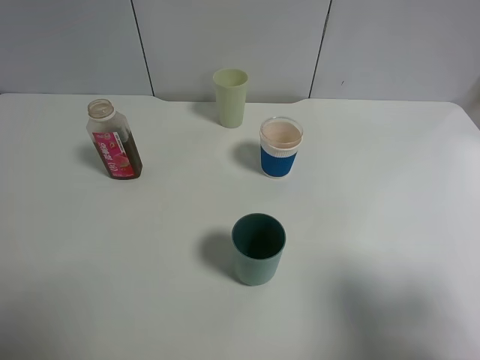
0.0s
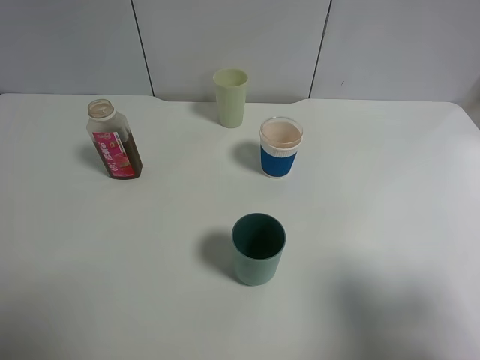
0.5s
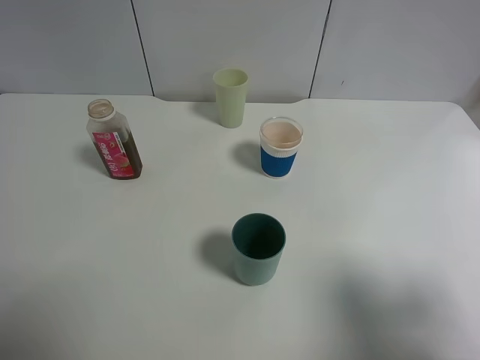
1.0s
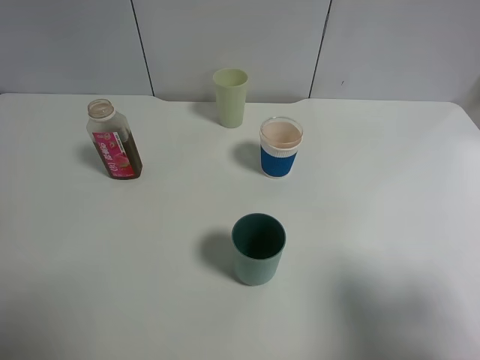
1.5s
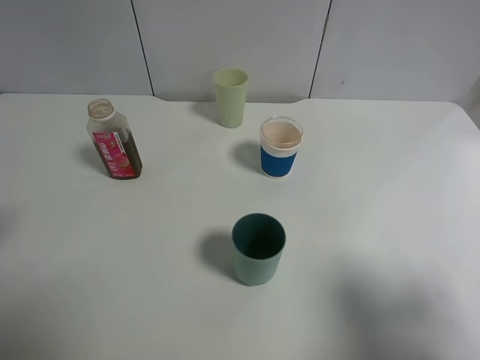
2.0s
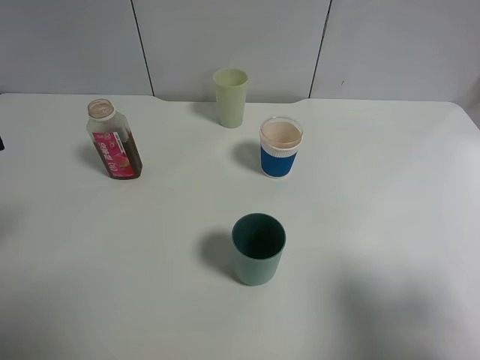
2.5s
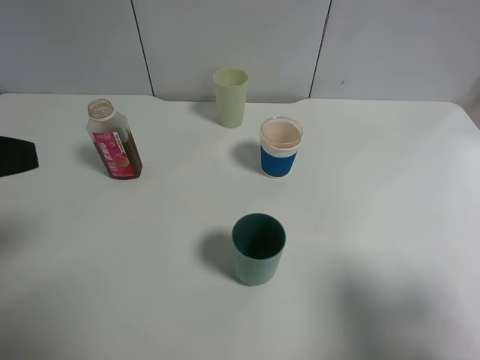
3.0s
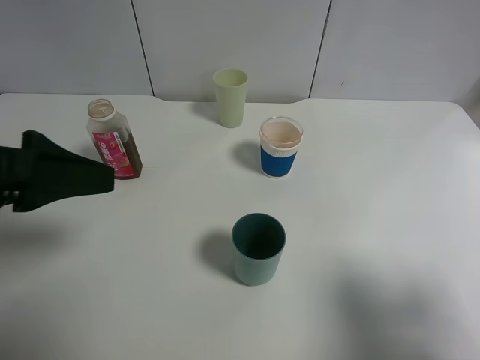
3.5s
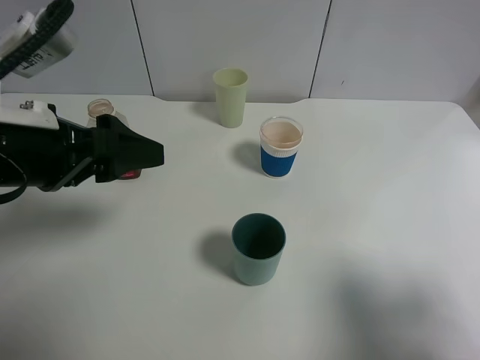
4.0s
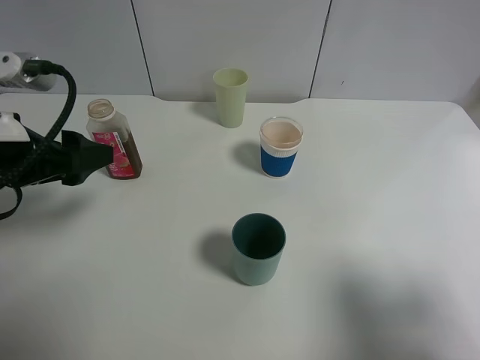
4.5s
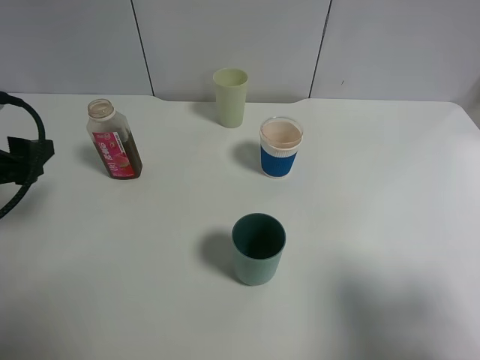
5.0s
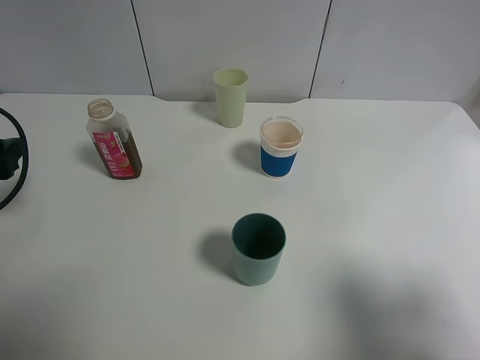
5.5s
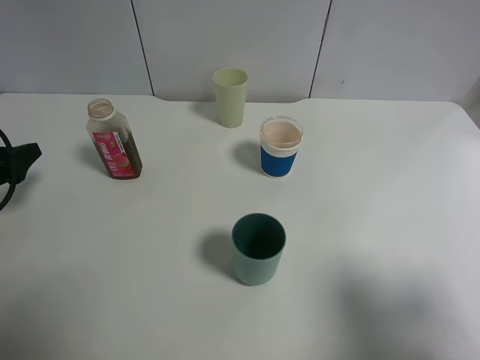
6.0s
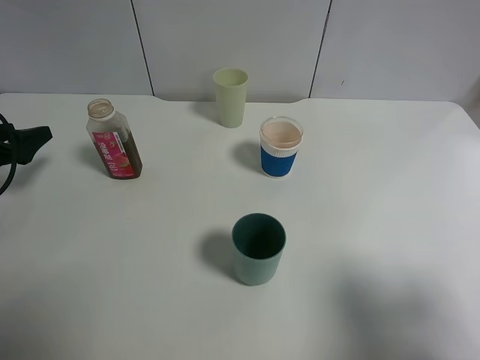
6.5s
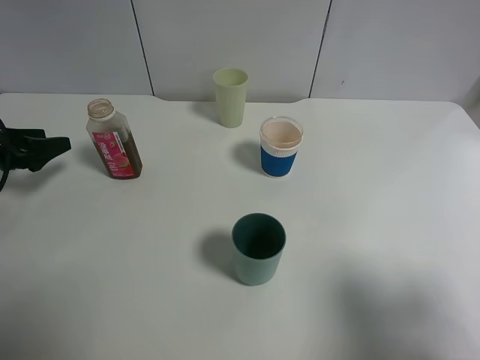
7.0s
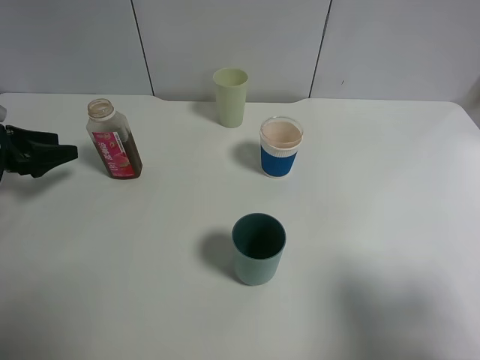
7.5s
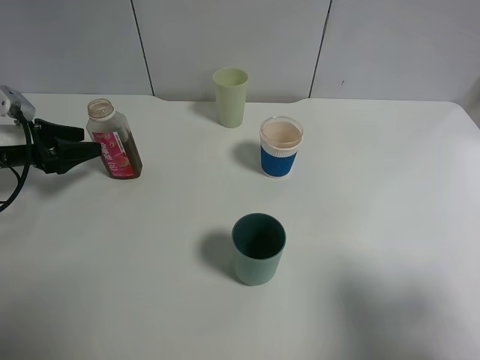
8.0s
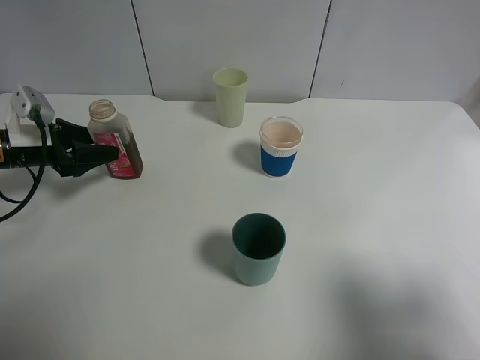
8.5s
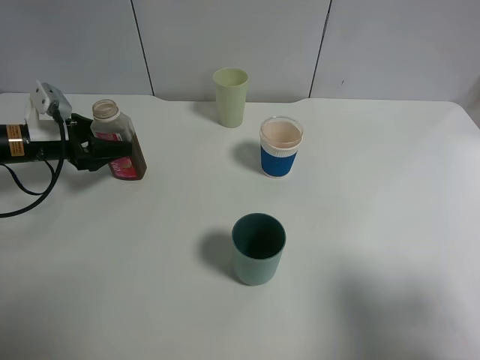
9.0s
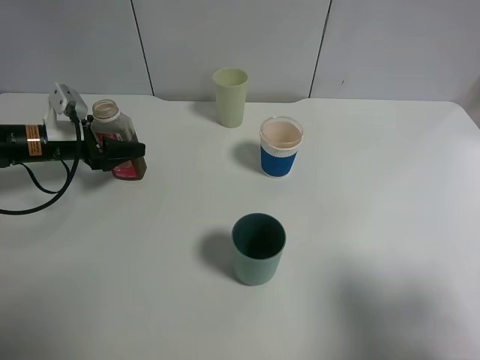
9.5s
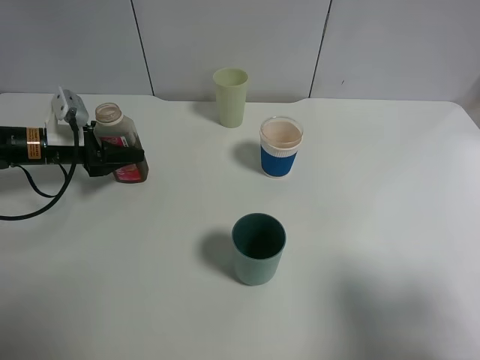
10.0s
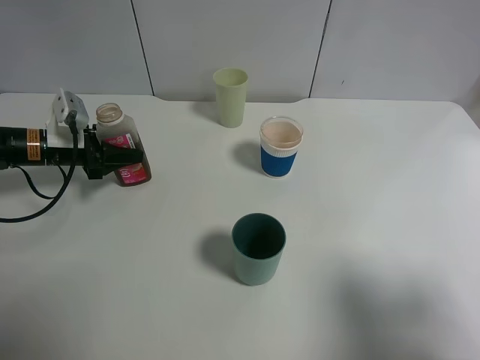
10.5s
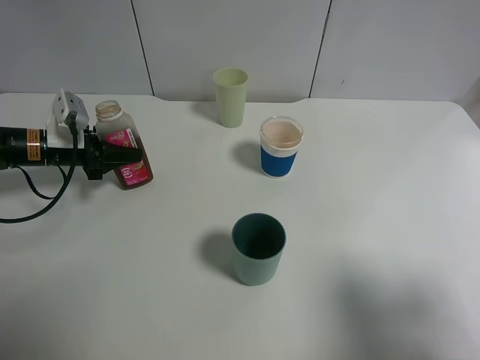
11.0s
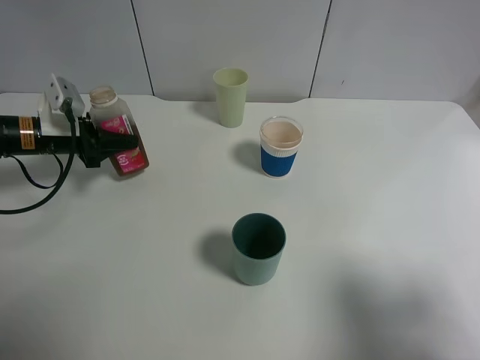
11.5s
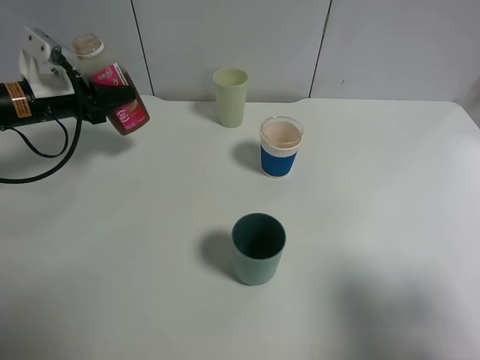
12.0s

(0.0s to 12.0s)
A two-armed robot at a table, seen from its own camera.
Task of the whole recording: use a gripper to hold the bottle of the drink and pour it into a random cup.
Step, 0.0s - 10.5s: Grasp the cranberry juice bottle with the left gripper.
2.0s - 4.0s: The left gripper heads to the right and forward, covering roughly 10 cm.
4.0s - 6.0s: The left gripper shifts approximately 25 cm to the left and downward.
6.0s - 8.0s: The left gripper is displaced forward by roughly 10 cm.
8.0s - 10.0s: The left gripper moves to the right, about 5 cm.
10.0s - 12.0s: The left gripper travels upward by roughly 5 cm, and closes.

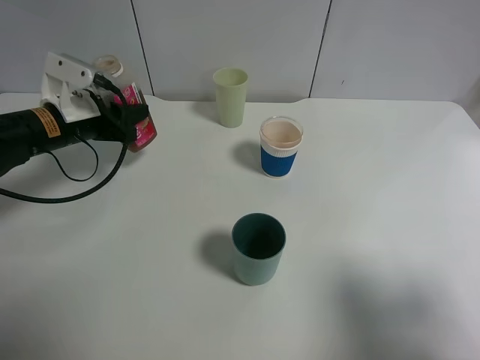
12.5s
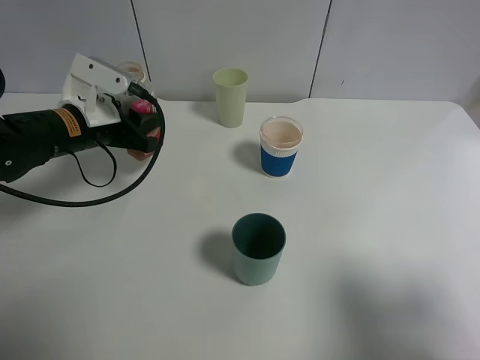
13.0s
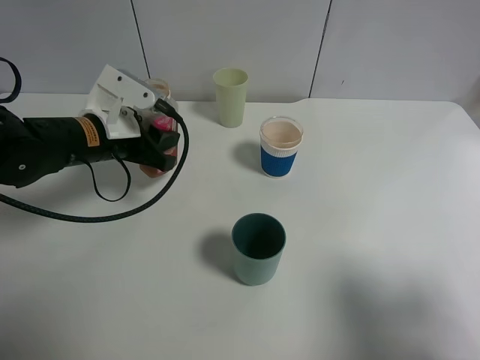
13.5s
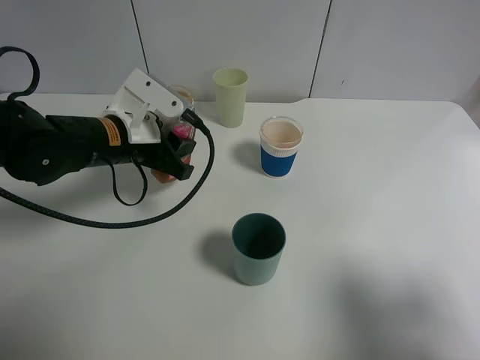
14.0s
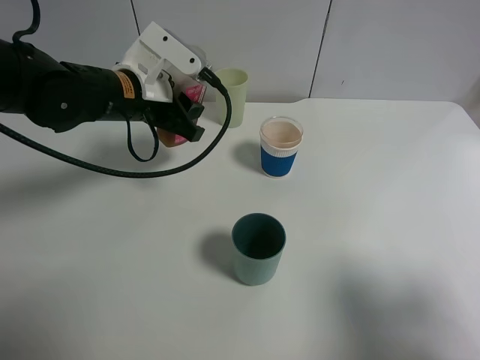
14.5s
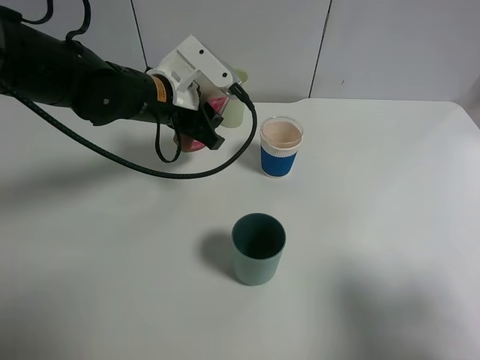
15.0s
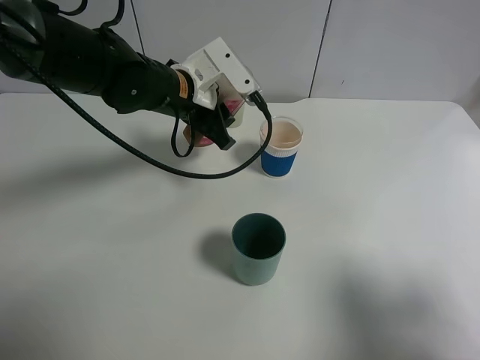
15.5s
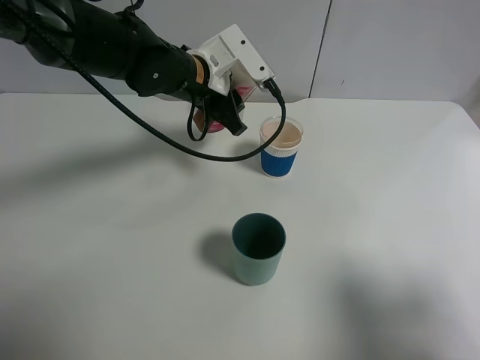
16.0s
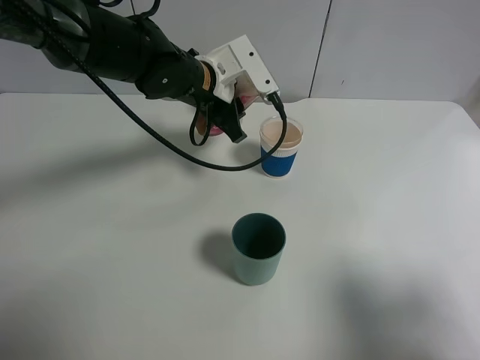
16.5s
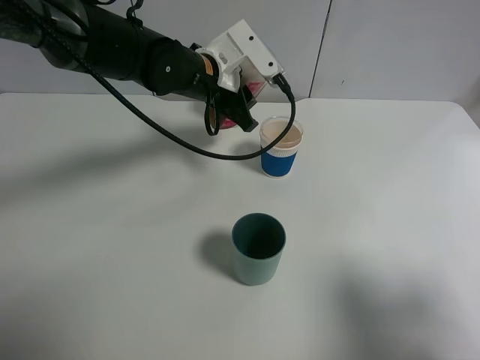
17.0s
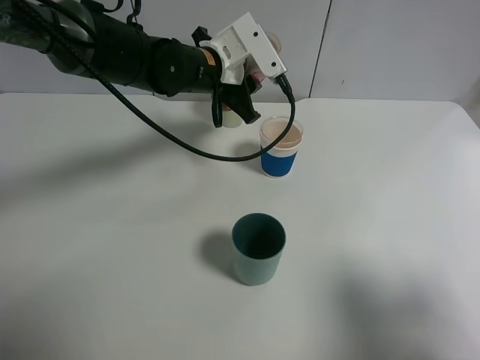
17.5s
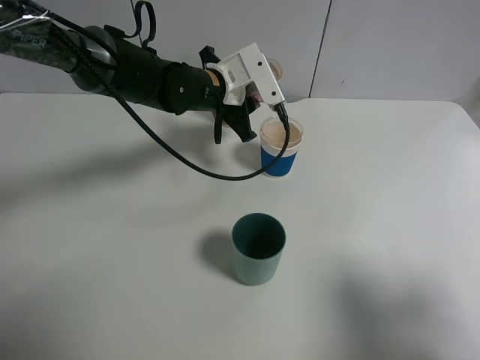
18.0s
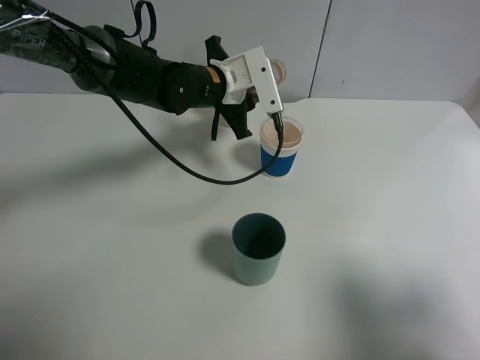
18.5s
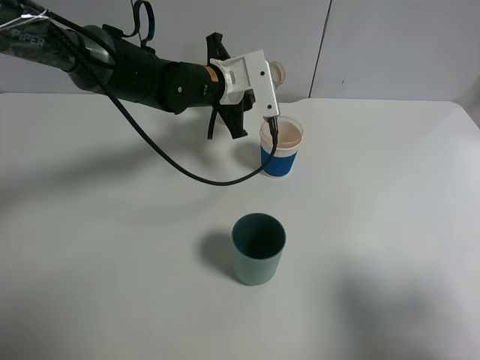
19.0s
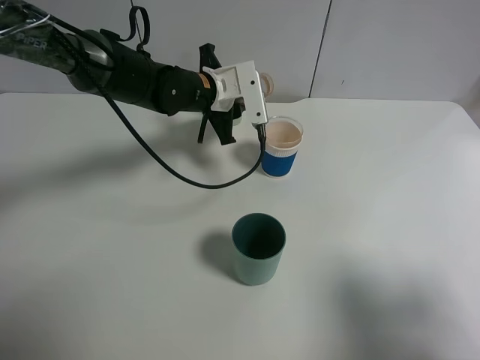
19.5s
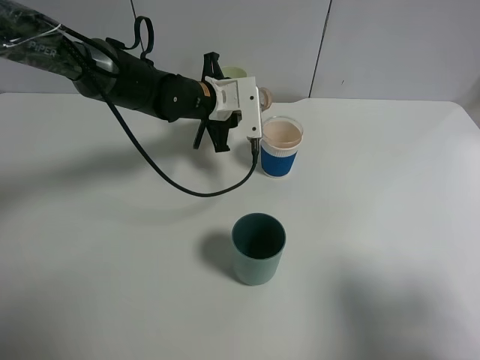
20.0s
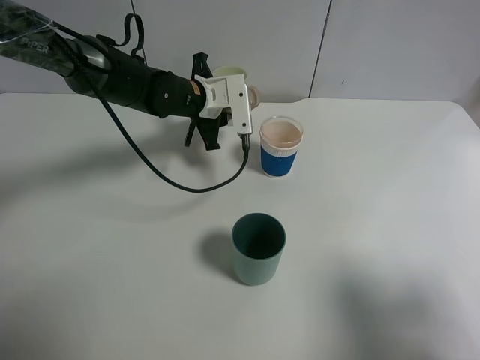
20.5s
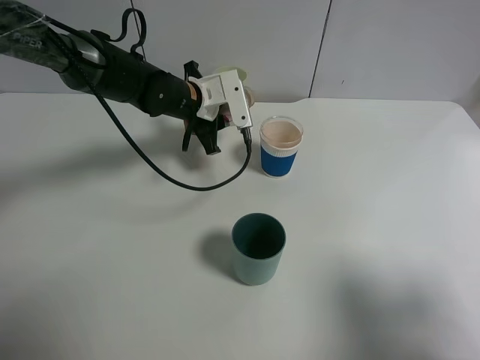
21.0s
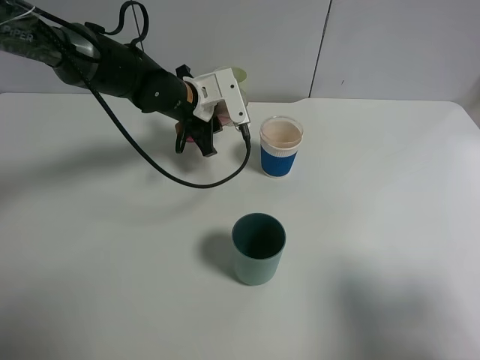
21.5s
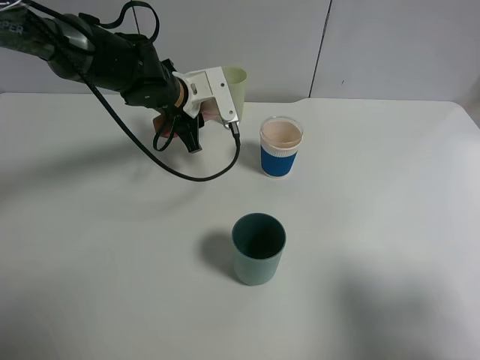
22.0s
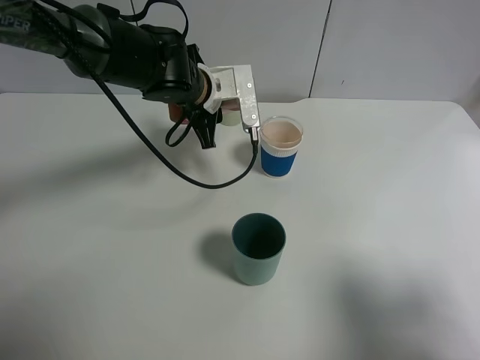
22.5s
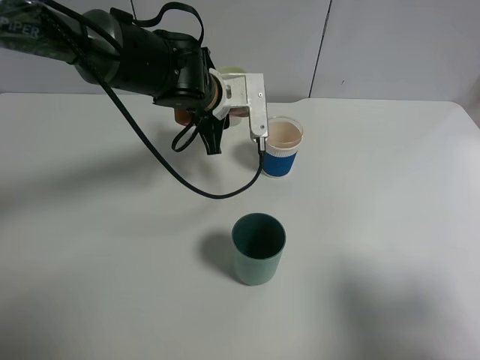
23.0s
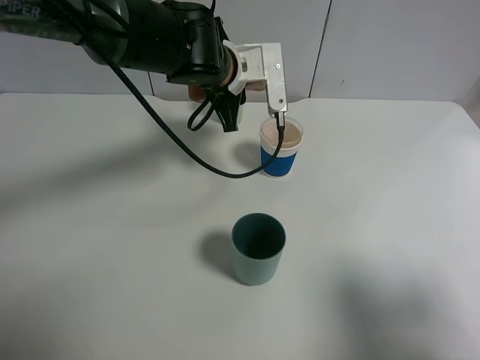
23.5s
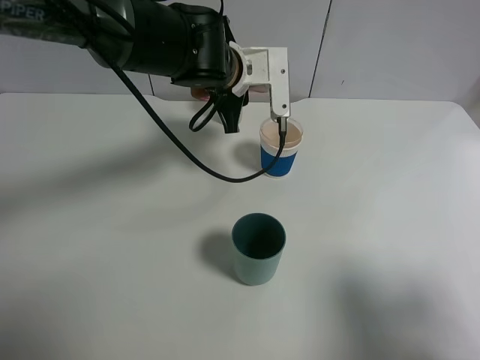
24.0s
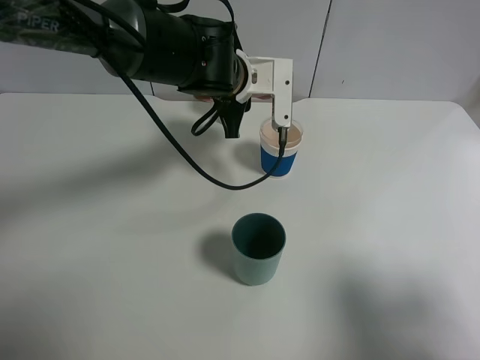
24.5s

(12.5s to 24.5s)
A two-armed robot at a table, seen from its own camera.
Task of the whole recording: use a gripper to hold the bottle of the drink and pour it into a random cup.
12.5s - 14.5s: The left gripper moves to the right, roughly 10 cm.
14.5s - 16.5s: The left gripper moves to the right and forward, some 10 cm.
18.5s - 20.5s: The left gripper ends up approximately 5 cm from where it was.
22.5s - 24.5s: The left gripper shifts roughly 5 cm to the right.

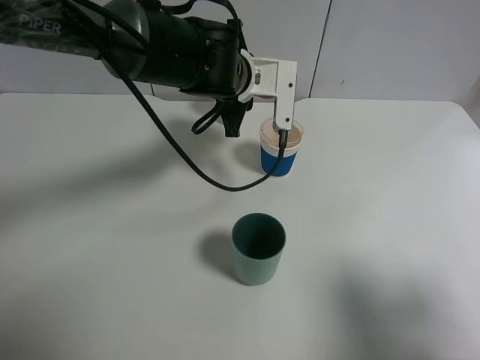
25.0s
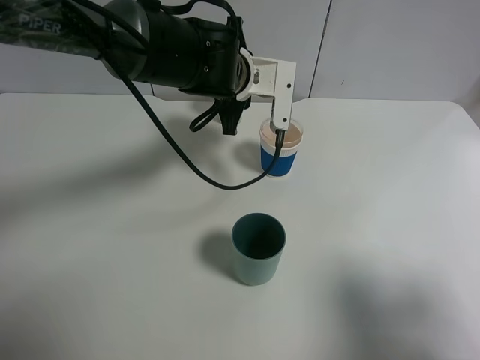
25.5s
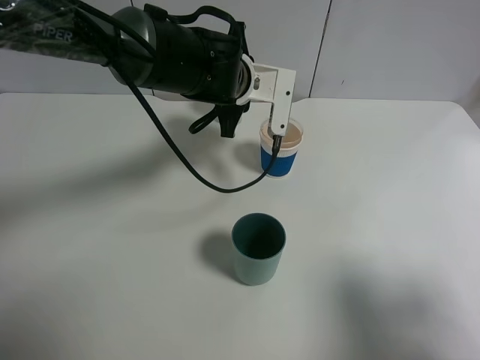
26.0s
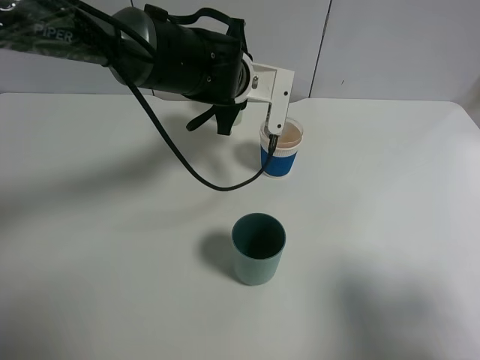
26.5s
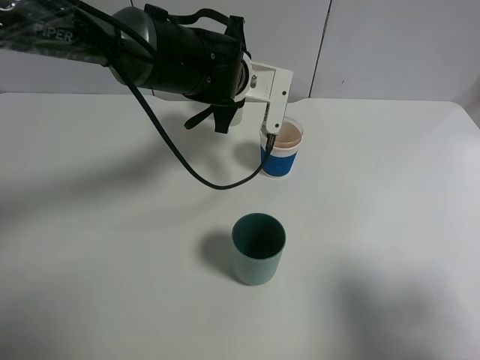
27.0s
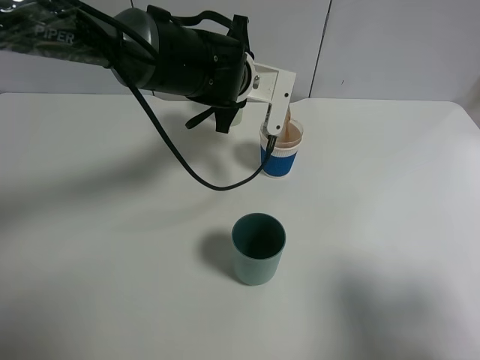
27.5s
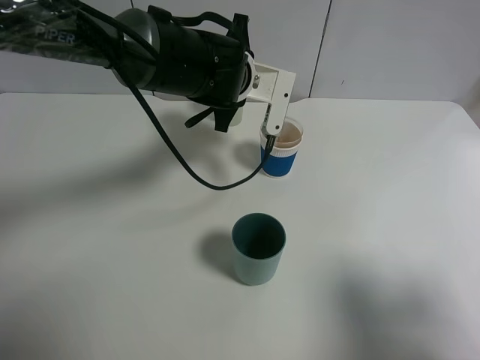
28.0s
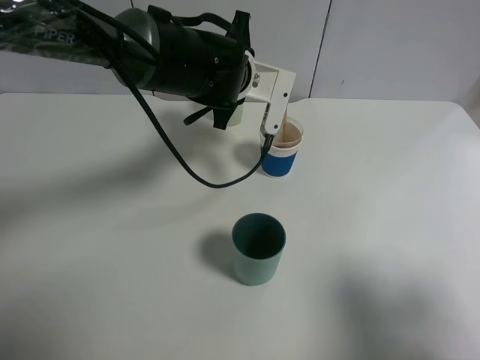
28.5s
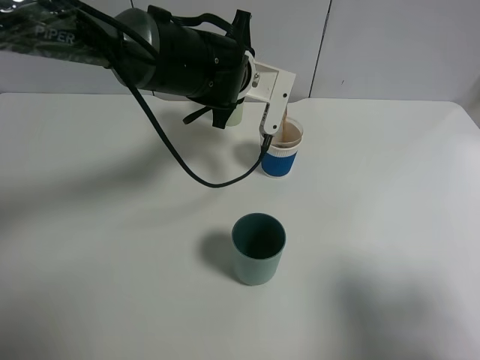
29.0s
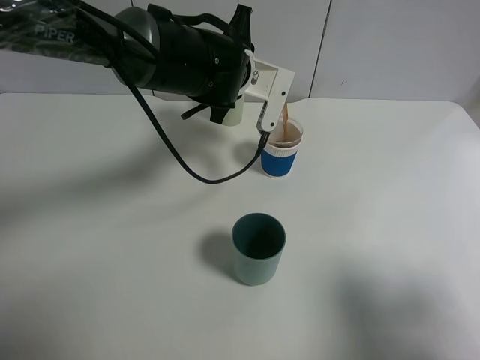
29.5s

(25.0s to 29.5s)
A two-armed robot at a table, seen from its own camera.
Task of the whole recording: use a gripper to hold the bottle of the drink and pour it into a random cup.
25.0s - 29.5s: The grippers stay close to where they were, moving slightly.
